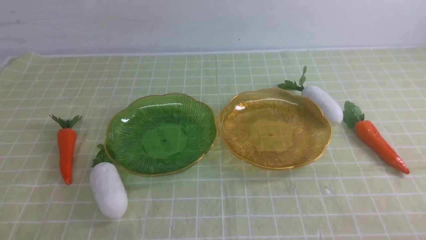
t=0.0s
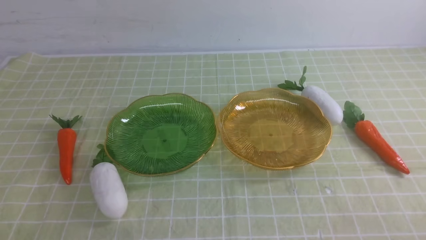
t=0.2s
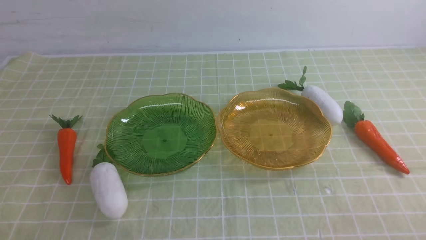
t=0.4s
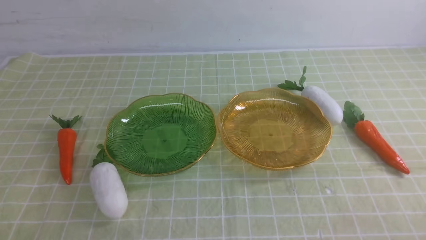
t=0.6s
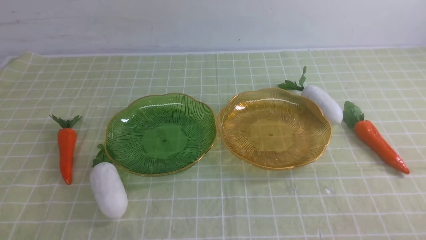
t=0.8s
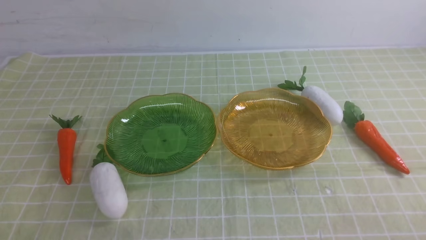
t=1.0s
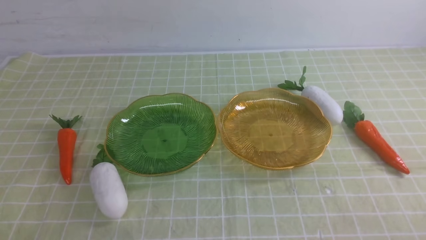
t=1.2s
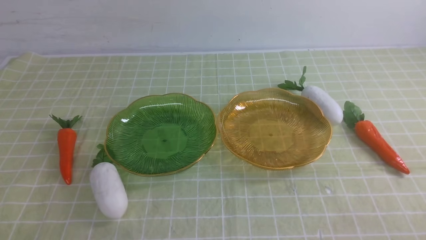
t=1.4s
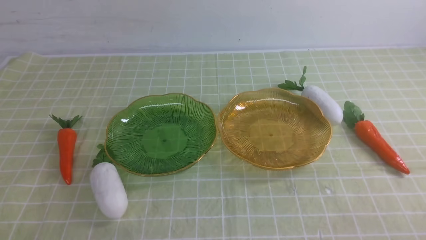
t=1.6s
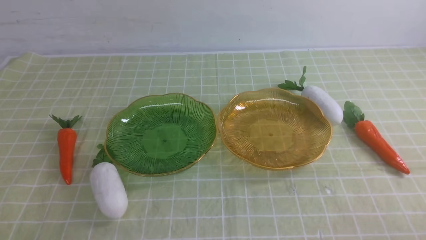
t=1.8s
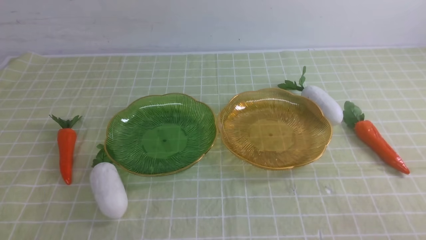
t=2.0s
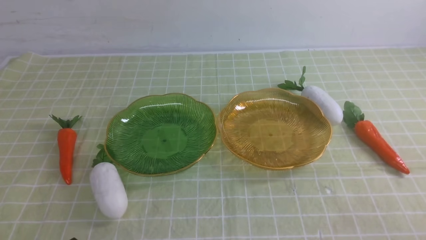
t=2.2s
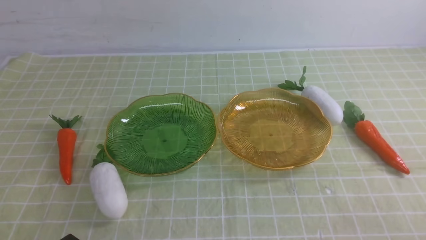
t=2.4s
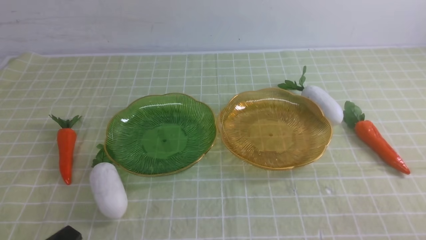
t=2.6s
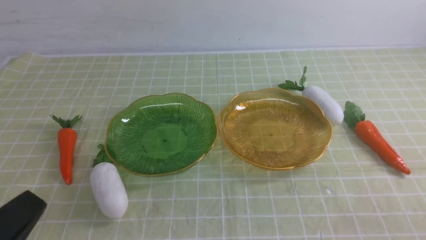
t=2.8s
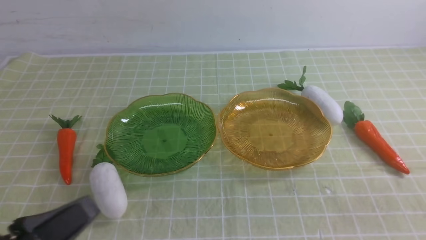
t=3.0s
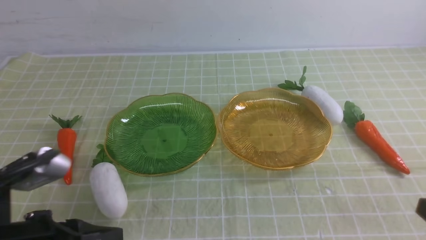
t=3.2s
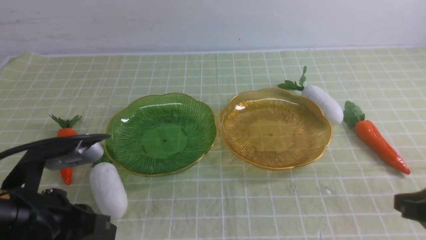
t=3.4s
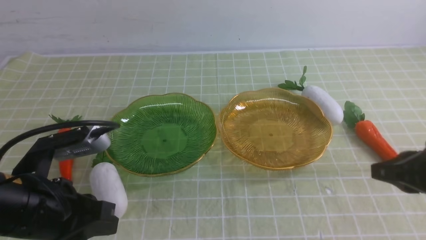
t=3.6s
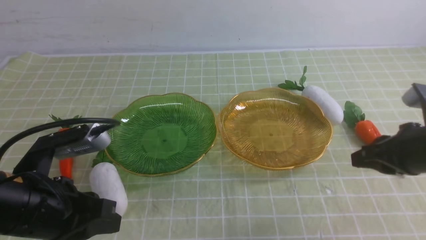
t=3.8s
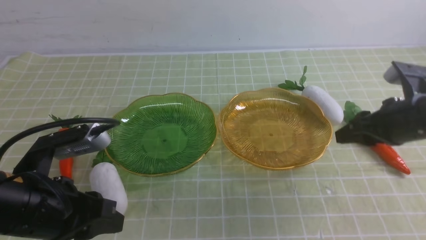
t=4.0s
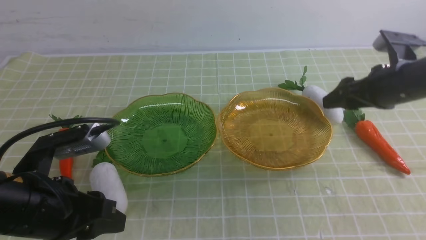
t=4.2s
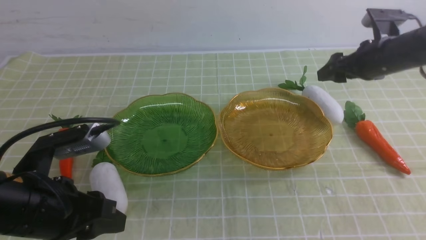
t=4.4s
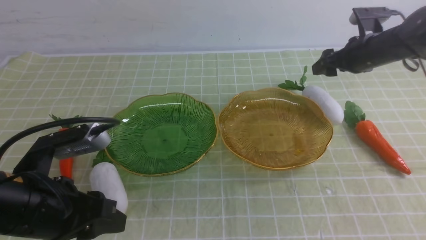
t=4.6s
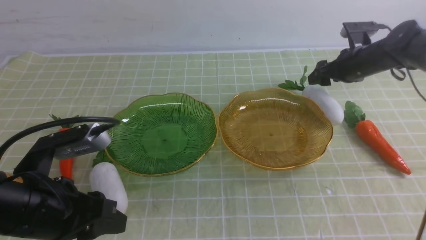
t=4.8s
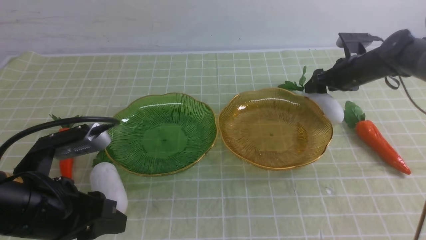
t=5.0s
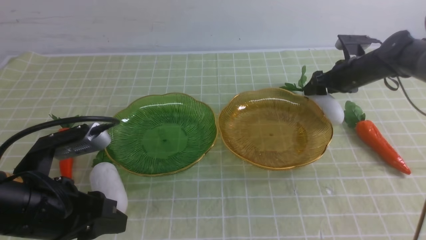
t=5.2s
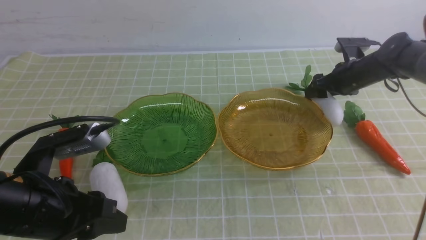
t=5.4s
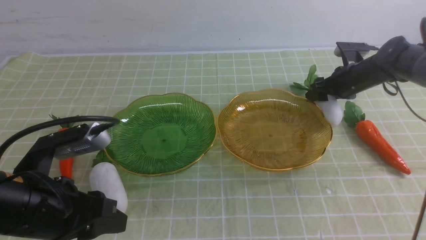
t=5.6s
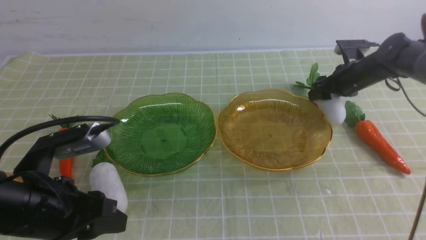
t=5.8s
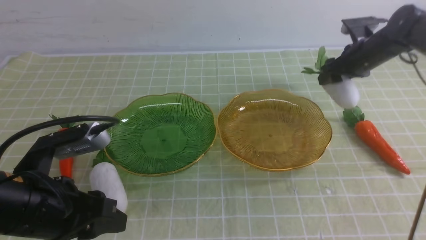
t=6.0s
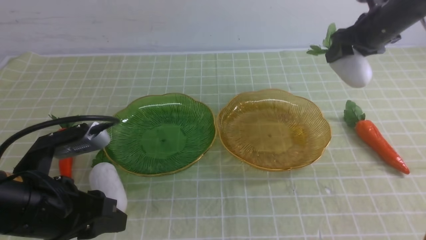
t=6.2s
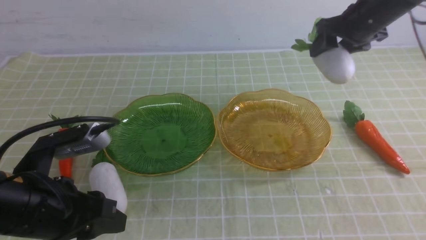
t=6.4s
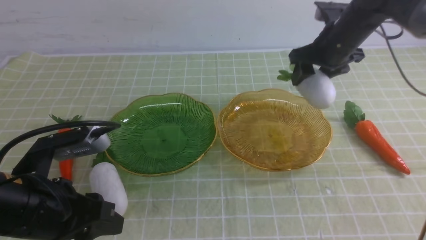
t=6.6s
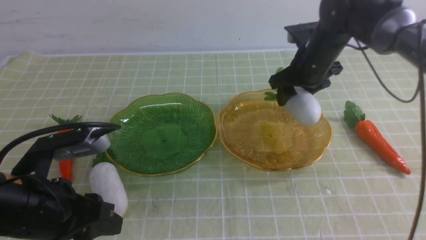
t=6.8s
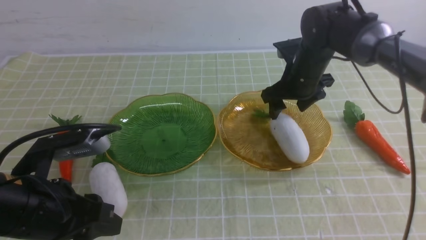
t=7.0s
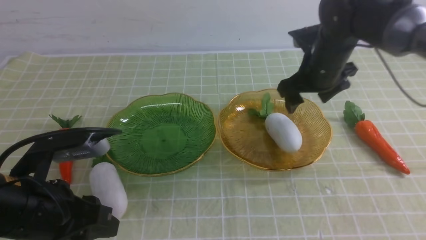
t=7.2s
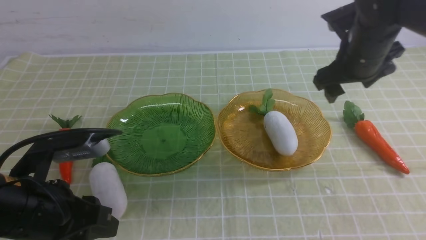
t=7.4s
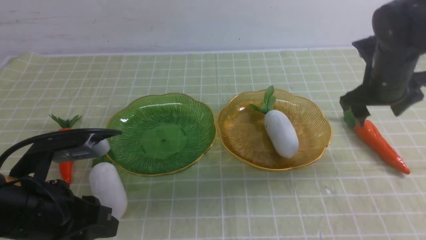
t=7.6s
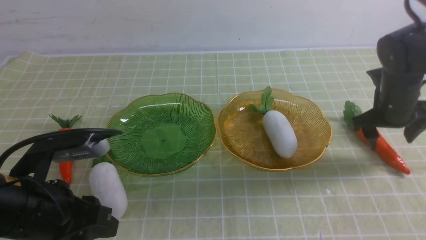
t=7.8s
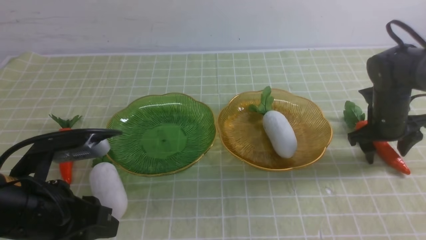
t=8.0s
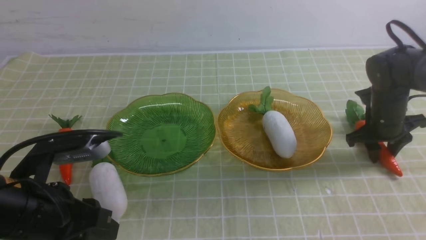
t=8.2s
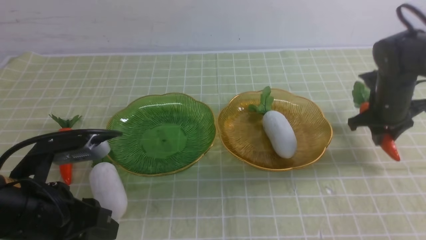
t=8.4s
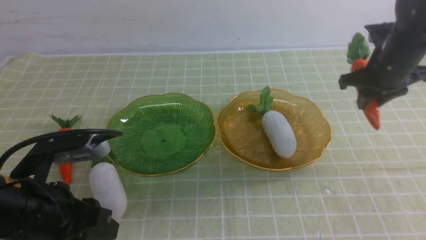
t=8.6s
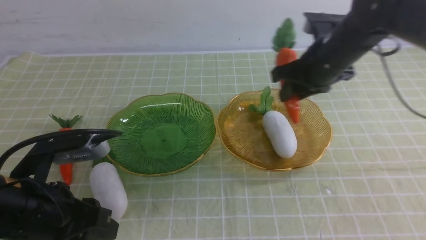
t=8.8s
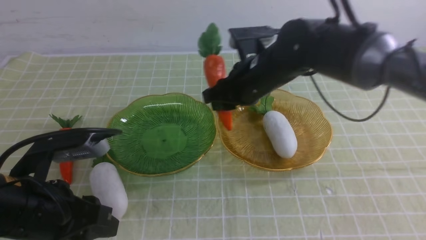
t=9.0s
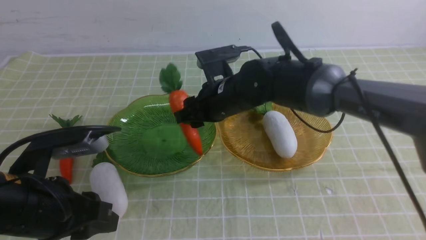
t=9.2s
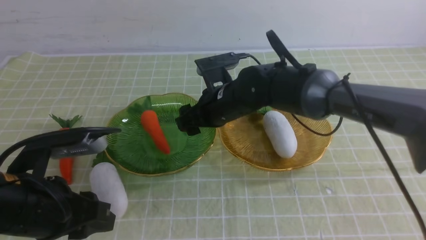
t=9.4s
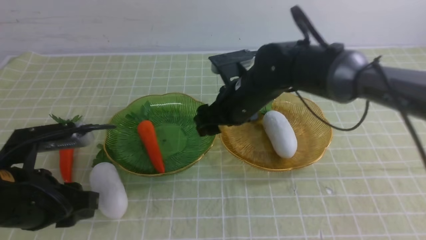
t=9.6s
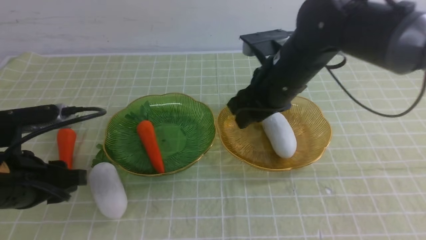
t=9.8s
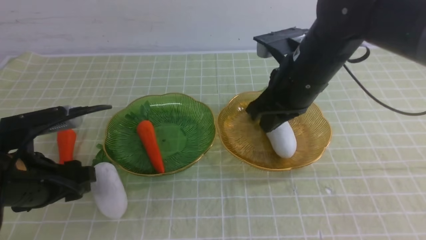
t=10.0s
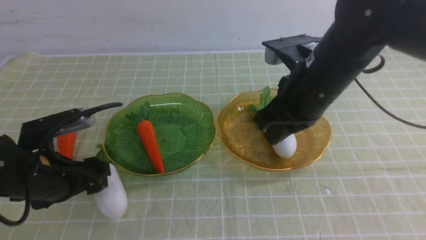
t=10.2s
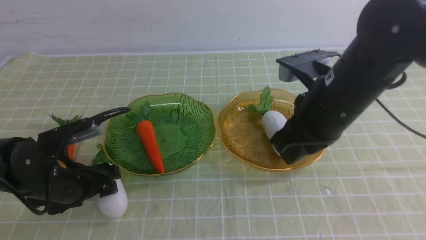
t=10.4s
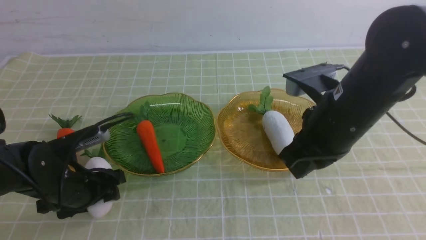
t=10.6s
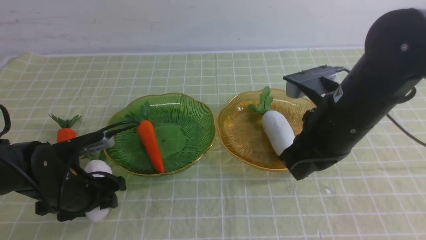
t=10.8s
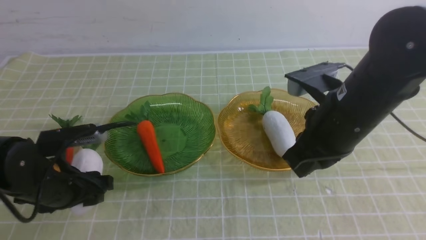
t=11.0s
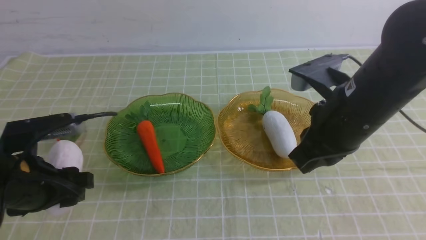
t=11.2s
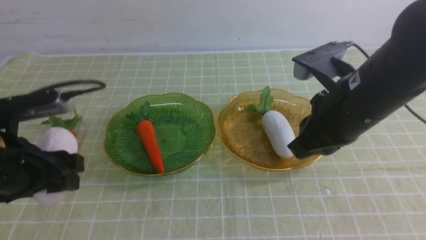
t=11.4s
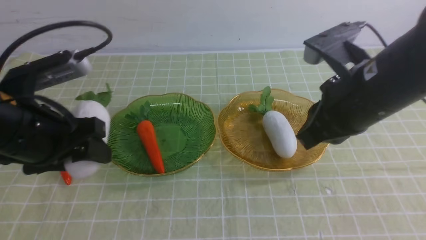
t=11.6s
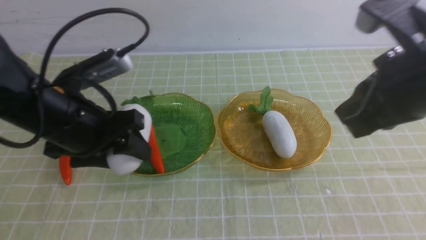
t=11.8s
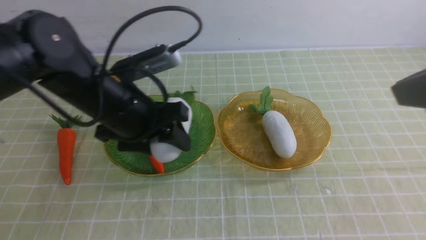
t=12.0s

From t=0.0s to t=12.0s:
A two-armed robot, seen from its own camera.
Step, from t=0.0s to t=7.8s: use the right arm to grab a radish and put it into the right plate.
Step, from t=8.0s to t=10.0s: use the right arm to grab a carrot and put it into the left plate.
From t=1.6s to t=3.0s: The left gripper moves upward, some 10 cm.
From t=3.0s to t=4.4s: The left gripper shifts approximately 10 cm forward, and opens up. The right gripper travels forward by approximately 35 cm, and opens up.
From t=4.4s to t=6.0s: The right gripper is displaced forward by about 5 cm, and goes downward and returns, approximately 10 cm each way.
From t=6.0s to t=7.6s: The right gripper is displaced backward by roughly 10 cm, and travels to the left and back again, about 10 cm each way.
From t=7.6s to t=9.0s: The right gripper moves to the left, approximately 20 cm, and closes up.
From t=9.0s to t=10.4s: The right gripper heads backward, to the right and upward, covering about 15 cm, and closes up. The left gripper travels forward and downward by approximately 10 cm, and opens its fingers.
From t=10.4s to t=12.0s: The left gripper moves upward and to the right, approximately 15 cm. The right gripper travels backward, upward and to the right by roughly 20 cm.

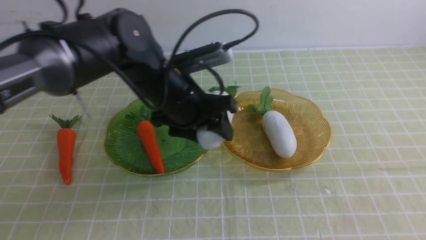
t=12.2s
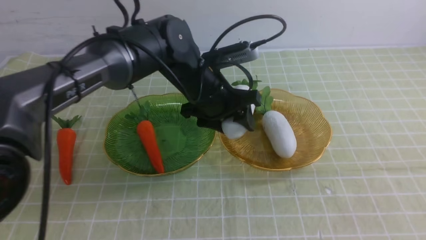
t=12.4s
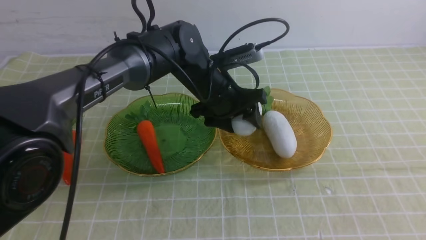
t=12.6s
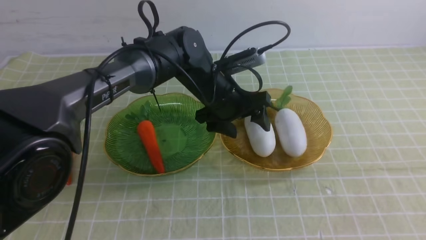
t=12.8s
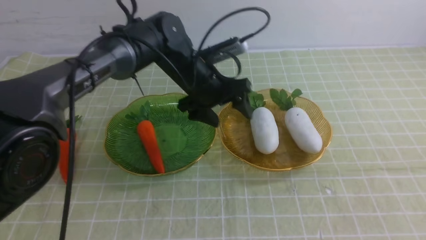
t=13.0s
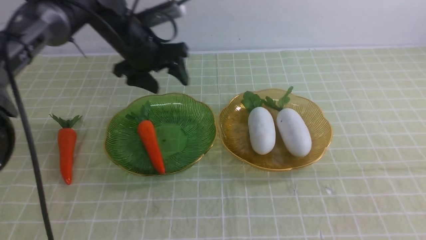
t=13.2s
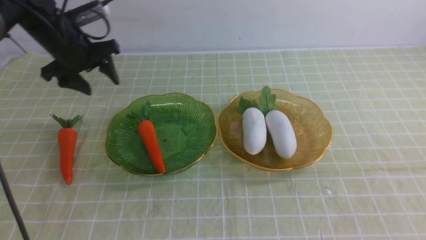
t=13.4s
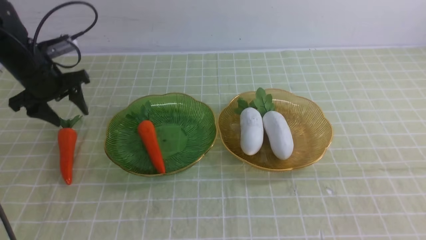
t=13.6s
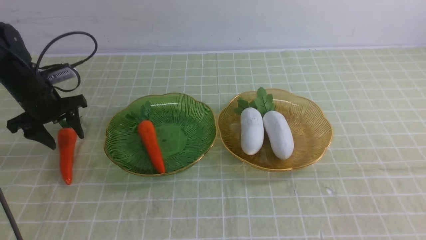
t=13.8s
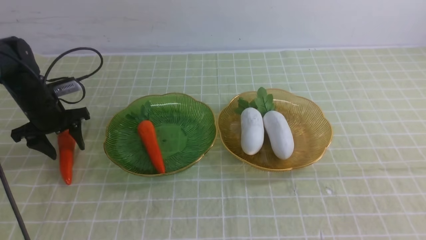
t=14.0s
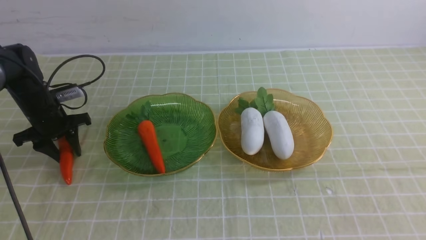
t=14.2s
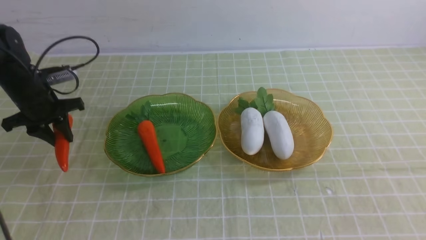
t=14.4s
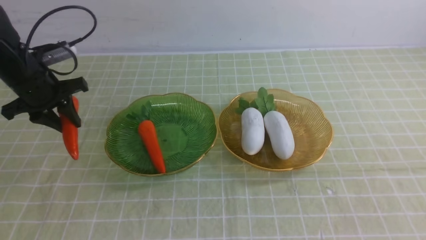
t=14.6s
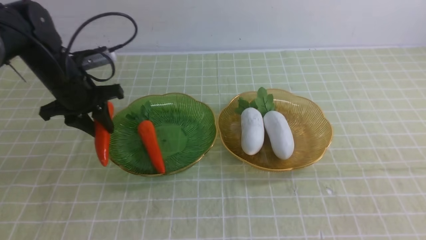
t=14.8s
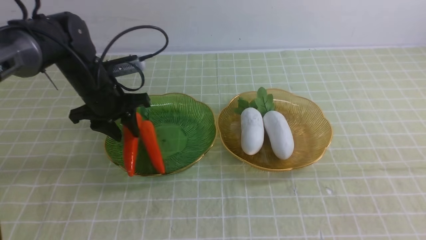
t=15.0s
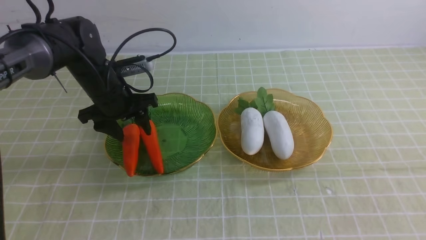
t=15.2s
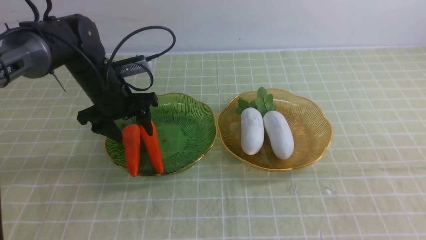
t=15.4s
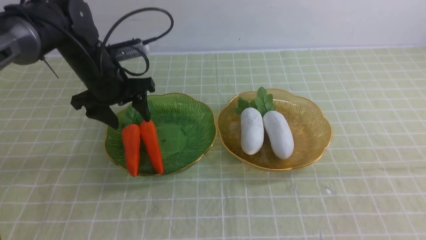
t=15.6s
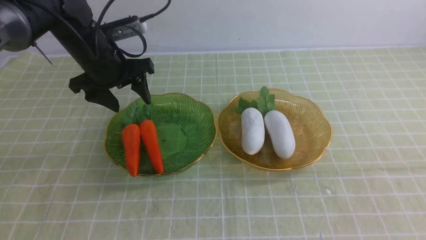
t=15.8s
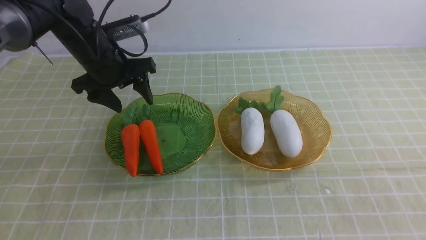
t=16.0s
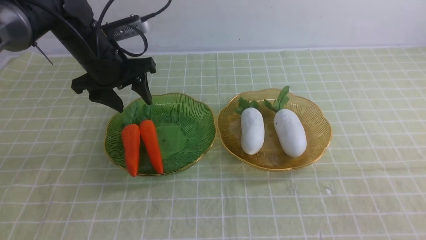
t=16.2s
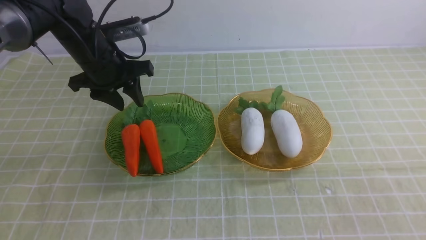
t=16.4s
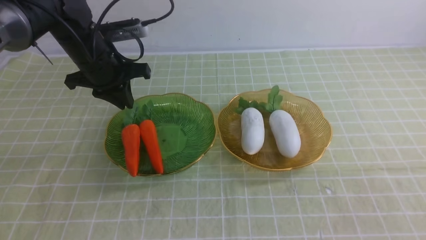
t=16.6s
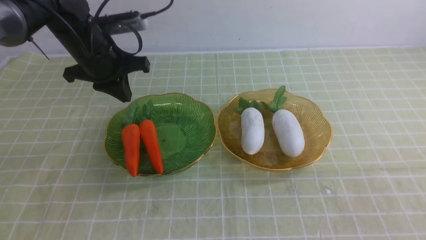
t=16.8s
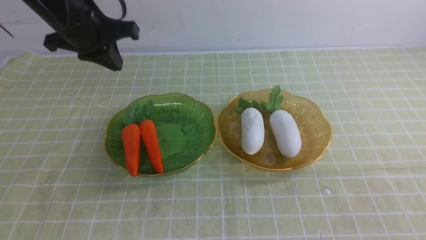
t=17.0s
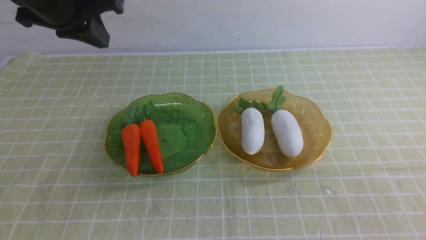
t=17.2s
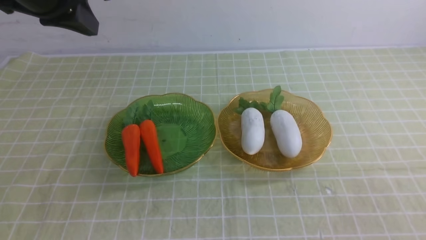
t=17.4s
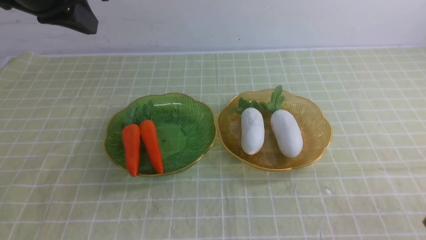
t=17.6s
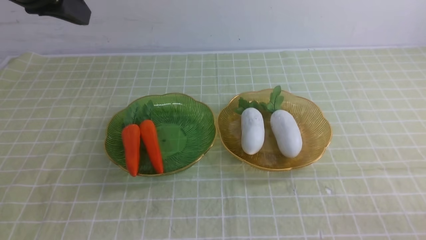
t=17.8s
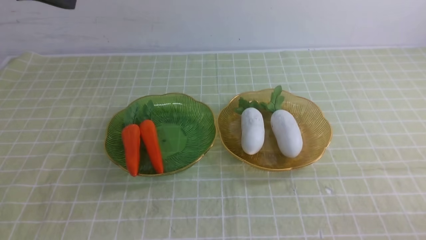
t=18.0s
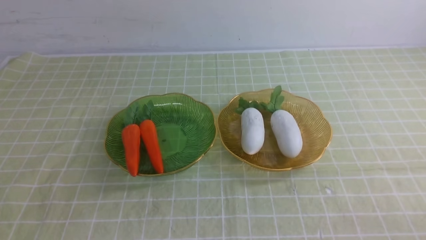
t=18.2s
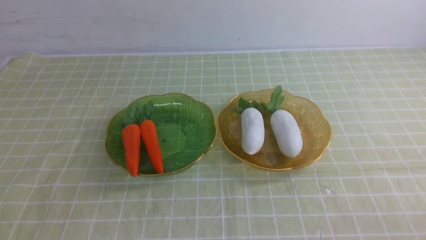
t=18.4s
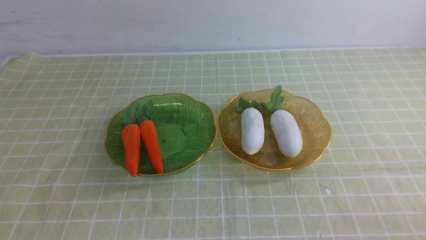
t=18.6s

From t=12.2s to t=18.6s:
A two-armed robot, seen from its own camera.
Step, from t=13.0s to t=15.8s: use the left arm to grab a carrot and put it into the left plate.
From t=12.2s to t=13.8s: The left gripper is displaced to the left by some 25 cm.
From t=13.8s to t=15.4s: The left gripper is displaced to the right by some 15 cm, and closes, then opens again.
From t=15.4s to t=17.0s: The right gripper goes roughly 10 cm downward. The left gripper goes some 15 cm upward, and closes its fingers.
From t=17.0s to t=18.6s: The left gripper heads backward and upward, covering some 30 cm.
